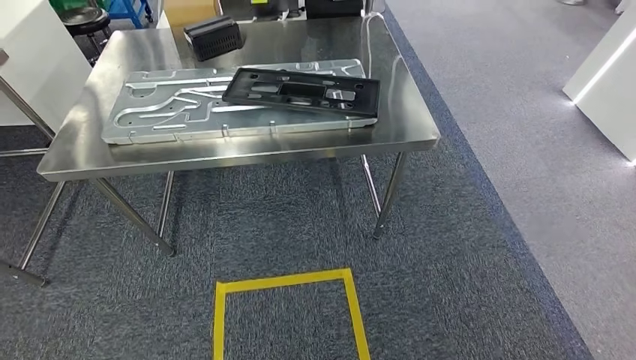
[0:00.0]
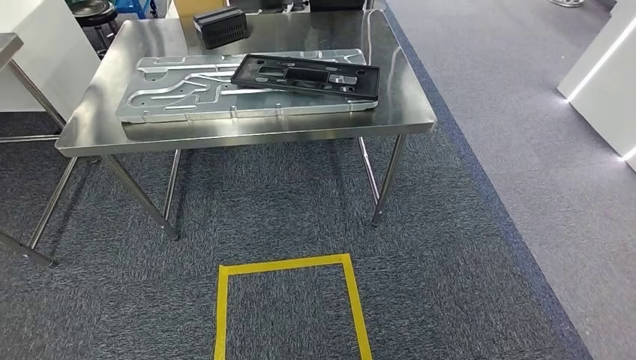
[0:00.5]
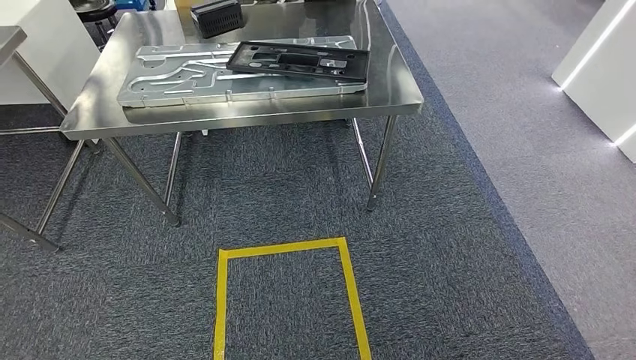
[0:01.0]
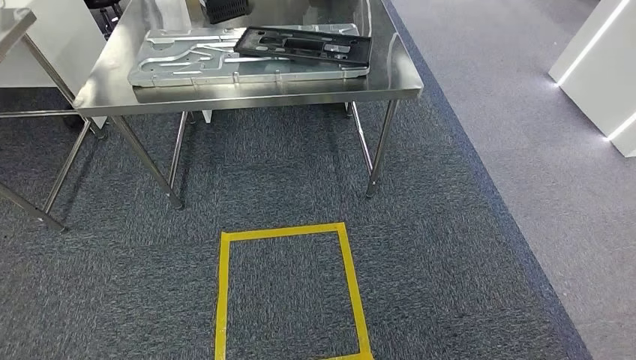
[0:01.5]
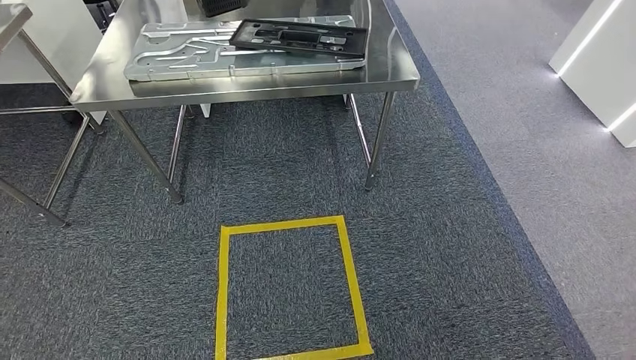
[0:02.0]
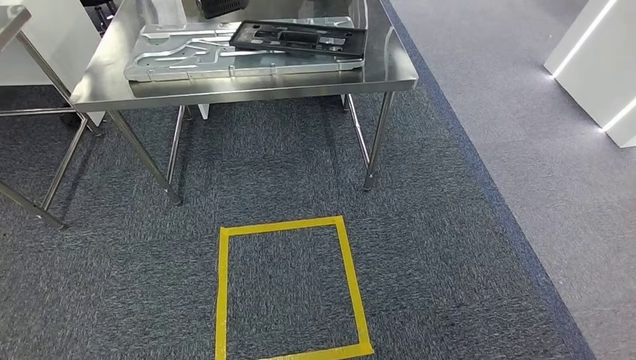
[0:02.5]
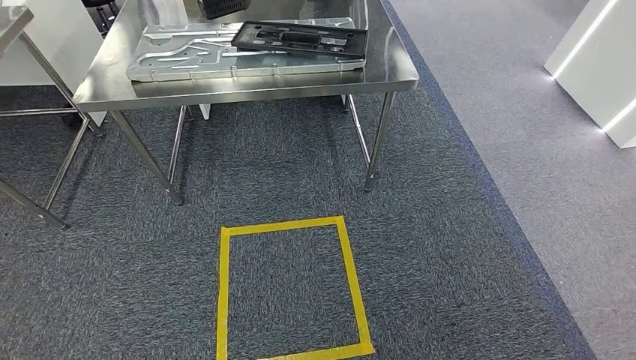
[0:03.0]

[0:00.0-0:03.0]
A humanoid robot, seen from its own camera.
Step, 0:00.0 to 0:03.0: Move to the initial position of the shelf.
0:01.5 to 0:03.0: The hands make only small movements.
